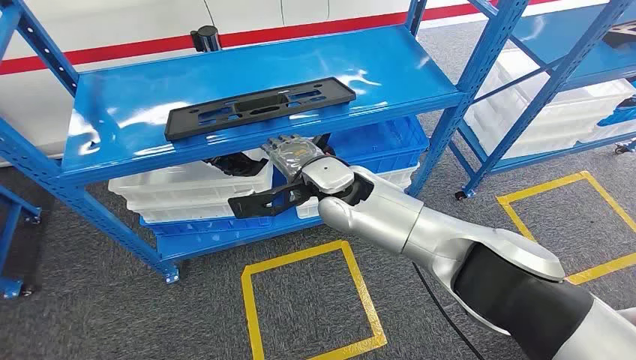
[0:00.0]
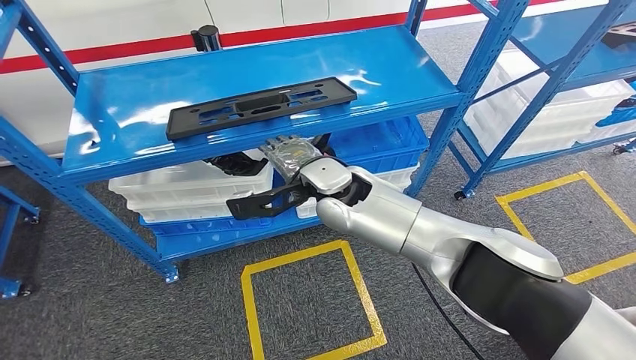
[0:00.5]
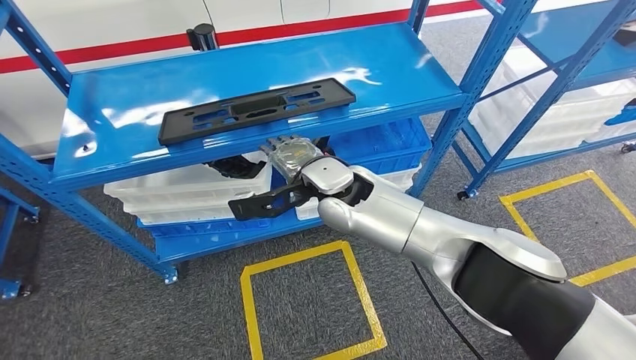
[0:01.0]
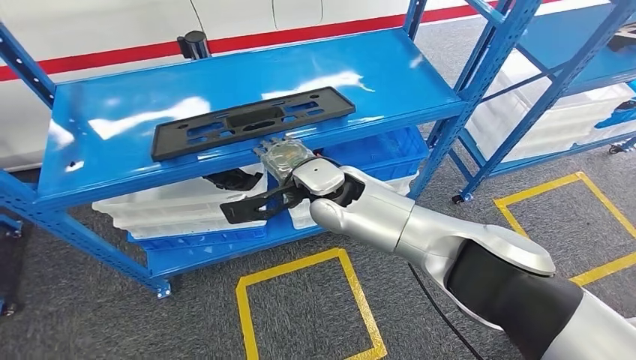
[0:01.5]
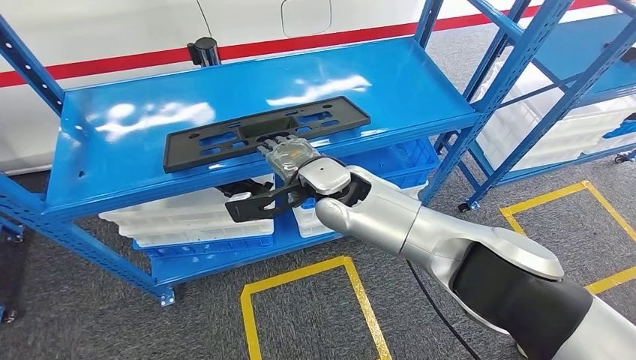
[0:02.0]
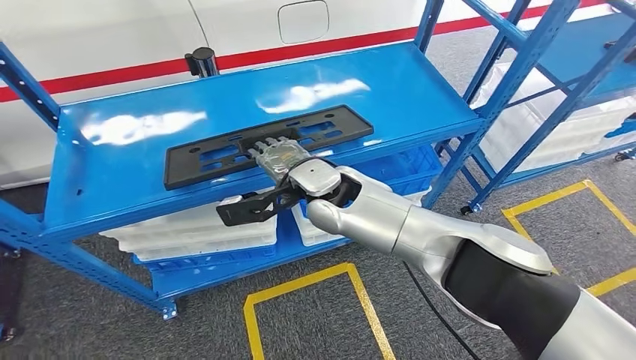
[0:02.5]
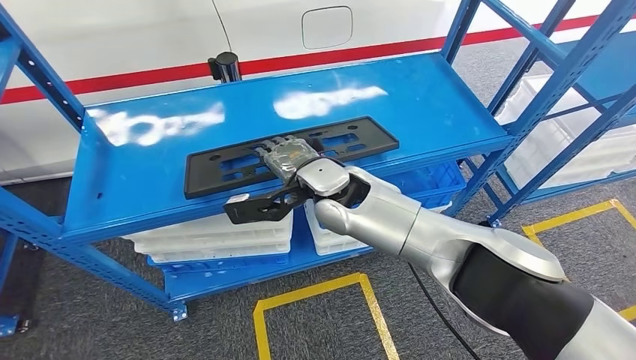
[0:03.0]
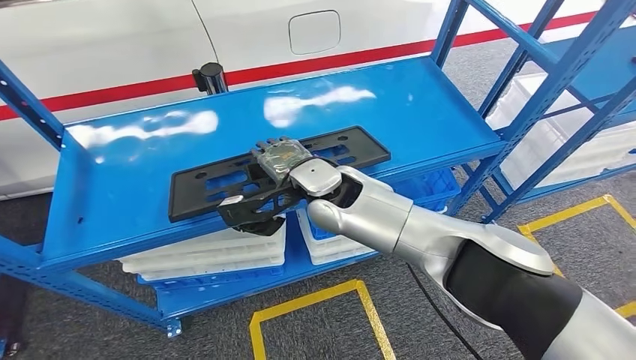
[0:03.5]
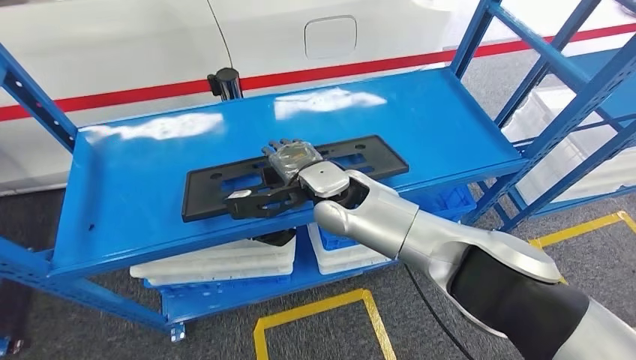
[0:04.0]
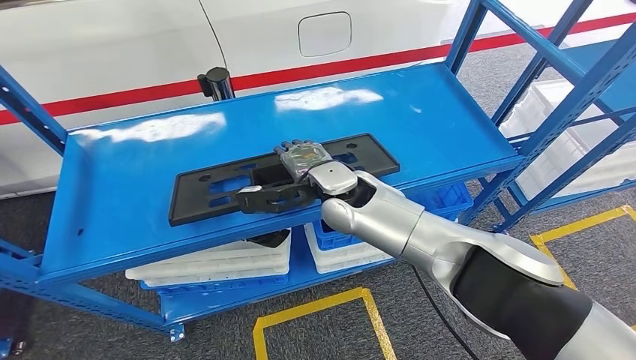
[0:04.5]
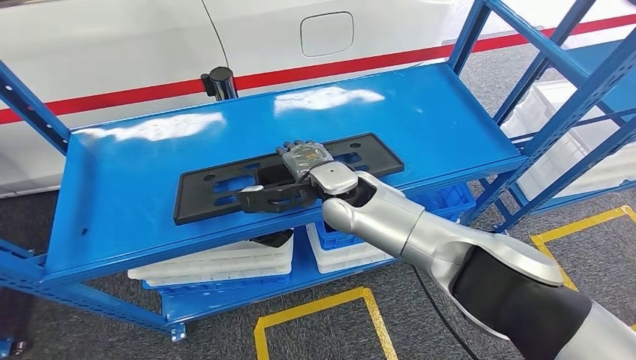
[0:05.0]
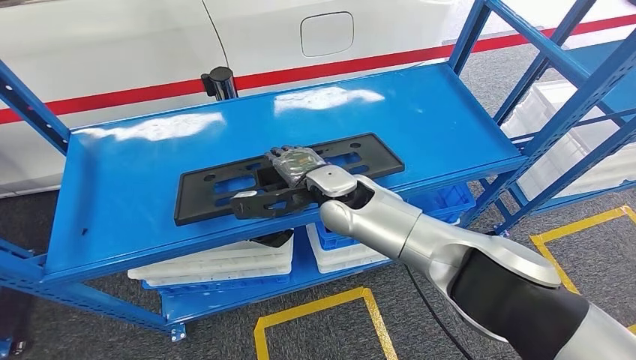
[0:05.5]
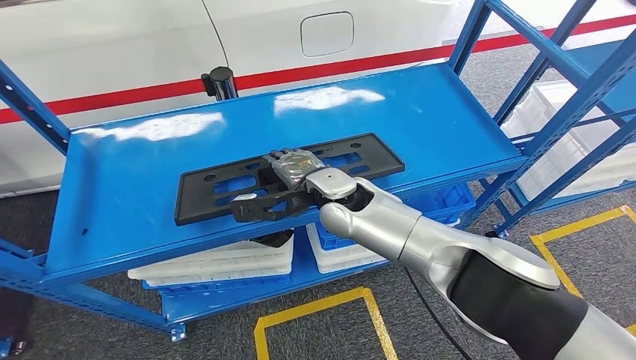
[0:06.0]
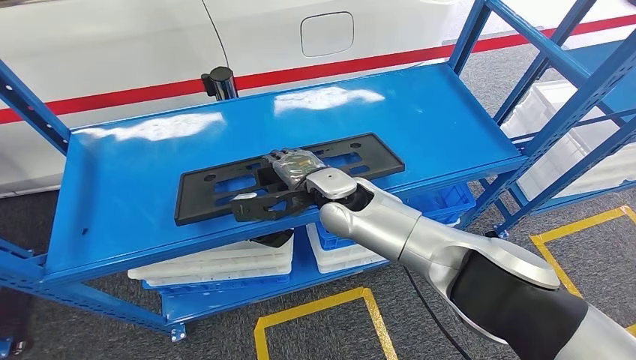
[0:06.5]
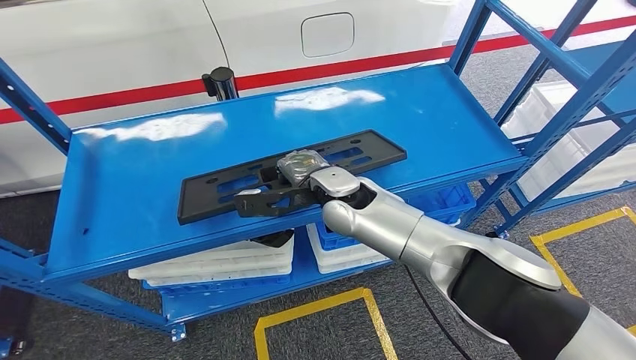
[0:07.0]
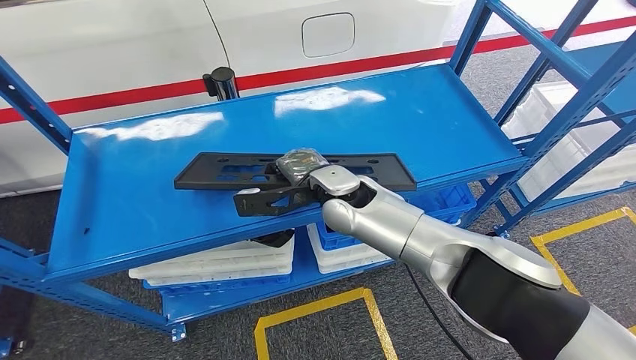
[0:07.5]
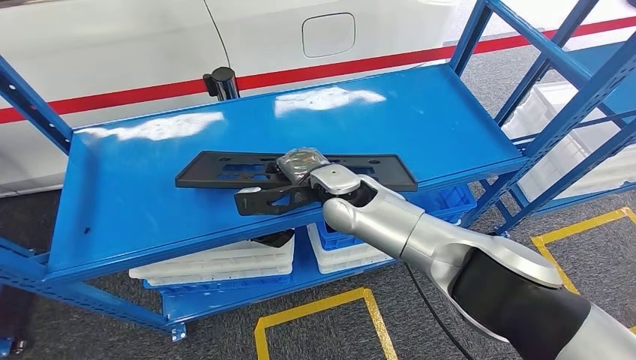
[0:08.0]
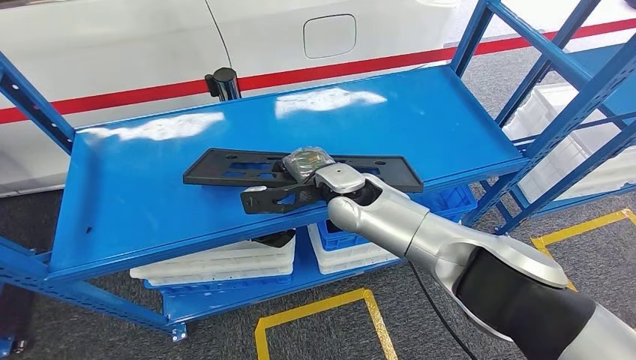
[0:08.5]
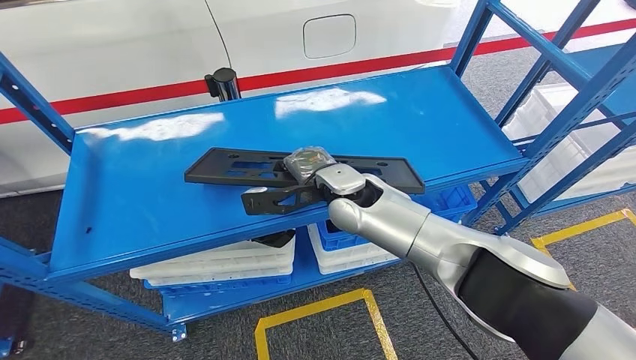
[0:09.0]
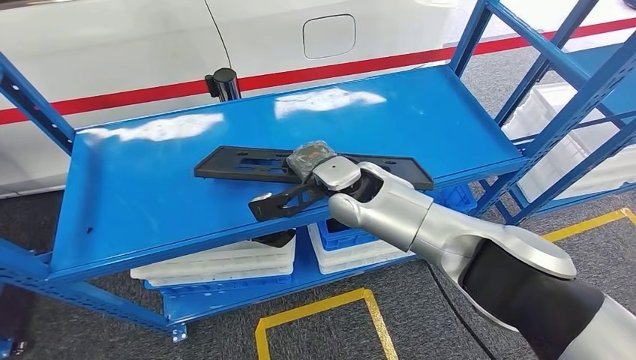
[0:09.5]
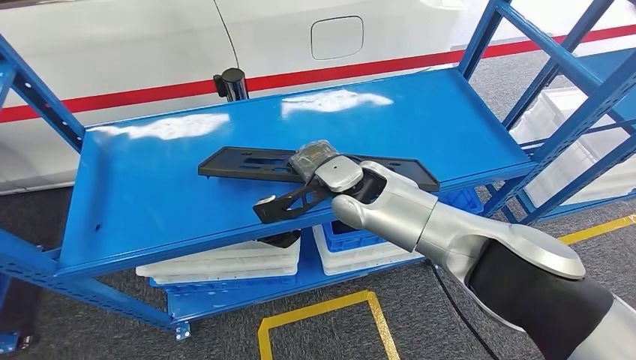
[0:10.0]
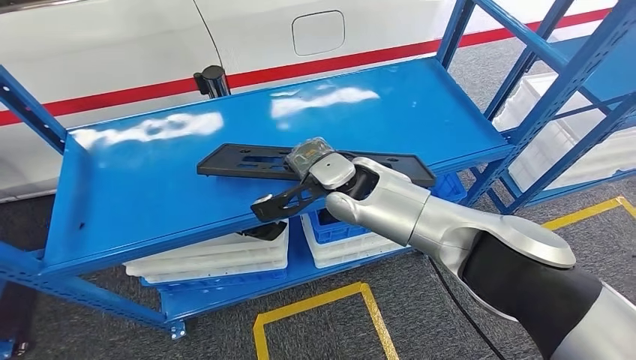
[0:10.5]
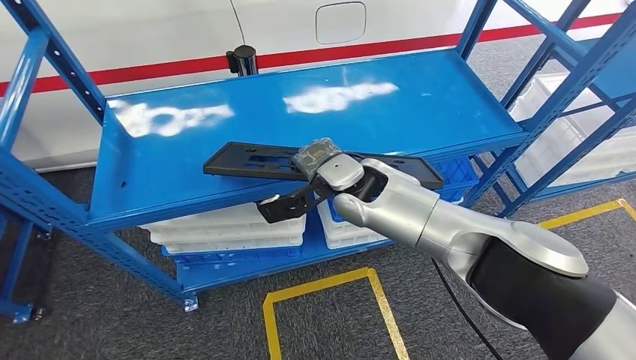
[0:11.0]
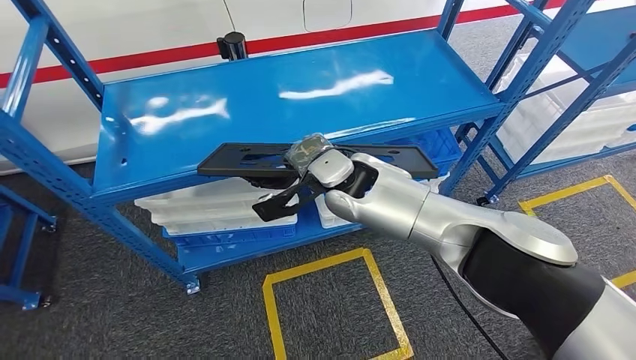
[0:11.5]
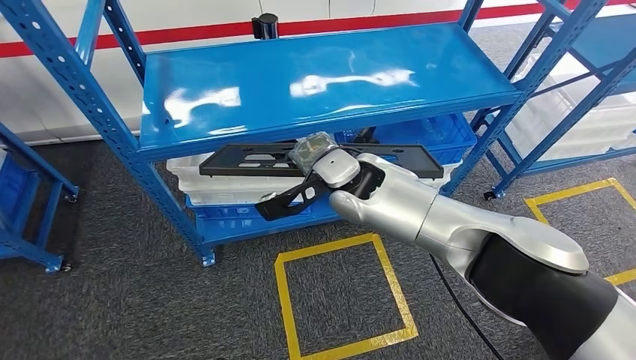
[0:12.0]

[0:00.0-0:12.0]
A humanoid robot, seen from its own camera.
0:04.0 to 0:06.0: The hands stay close to where they were, moving slightly.
0:06.0 to 0:08.0: Both hands stay about where they are.

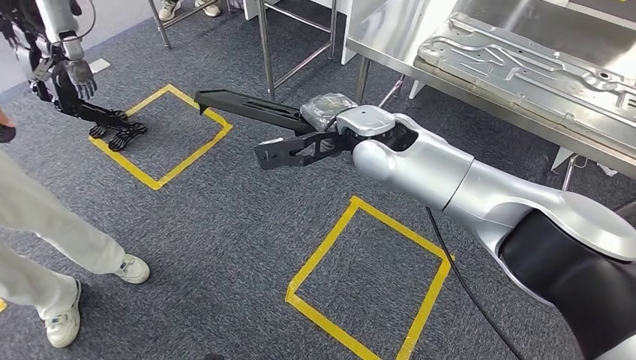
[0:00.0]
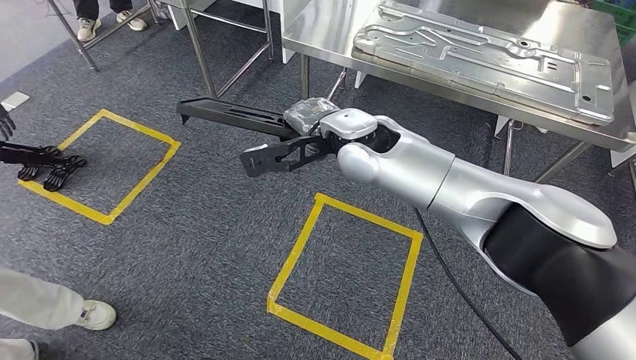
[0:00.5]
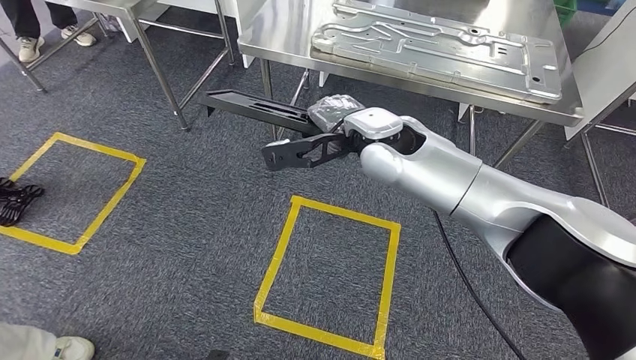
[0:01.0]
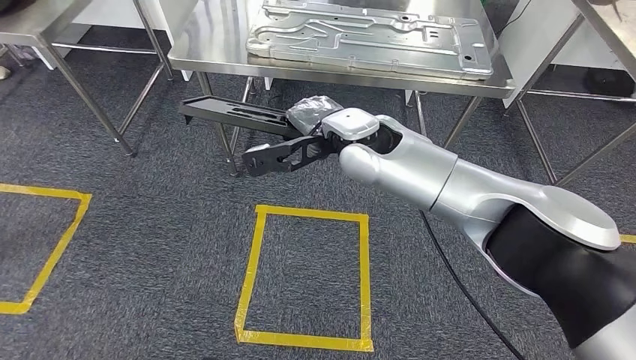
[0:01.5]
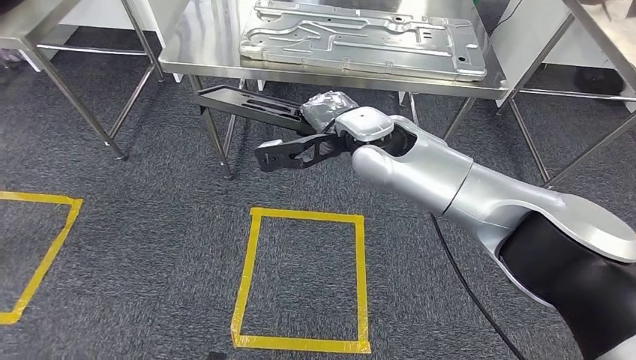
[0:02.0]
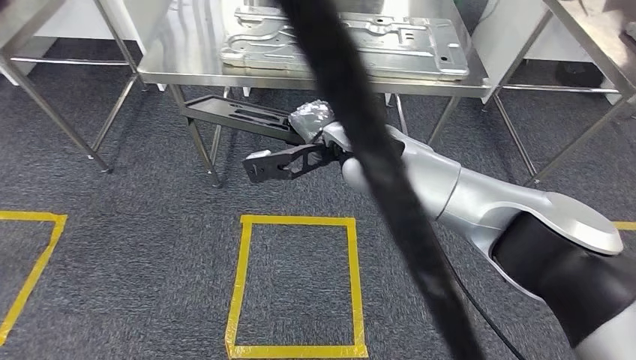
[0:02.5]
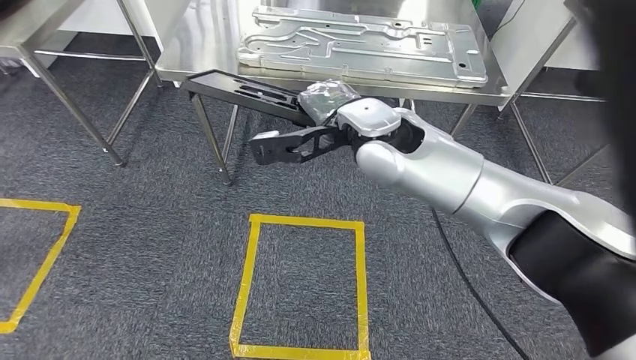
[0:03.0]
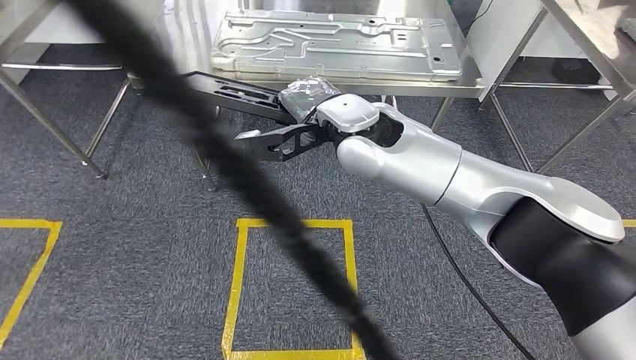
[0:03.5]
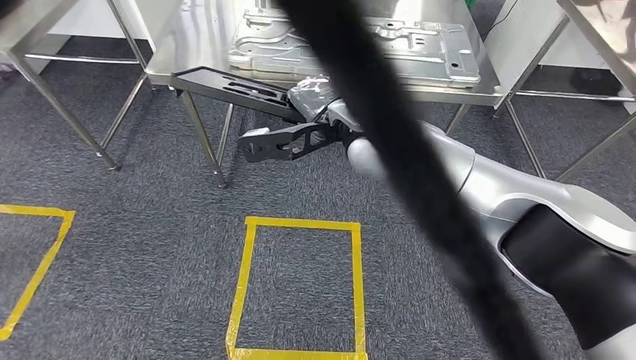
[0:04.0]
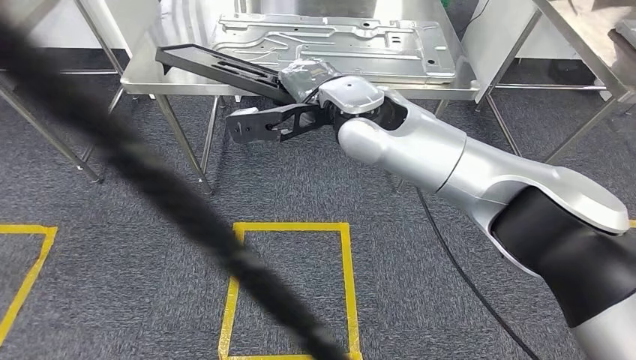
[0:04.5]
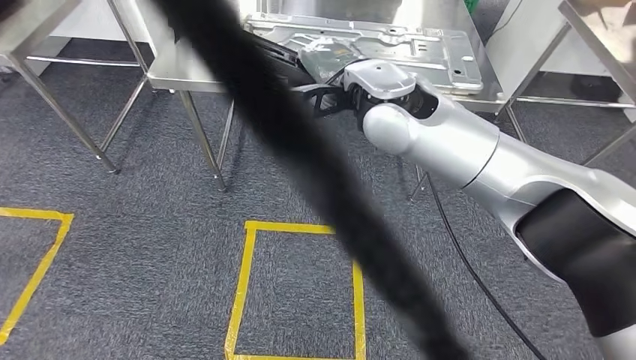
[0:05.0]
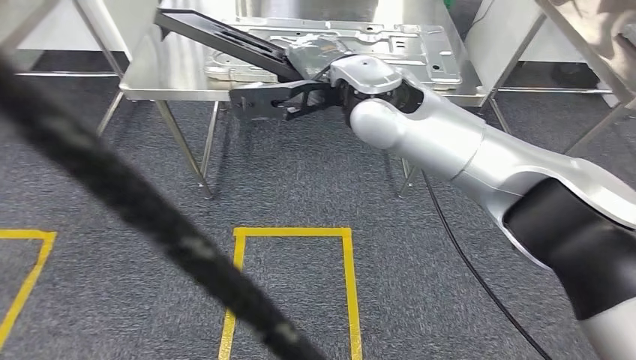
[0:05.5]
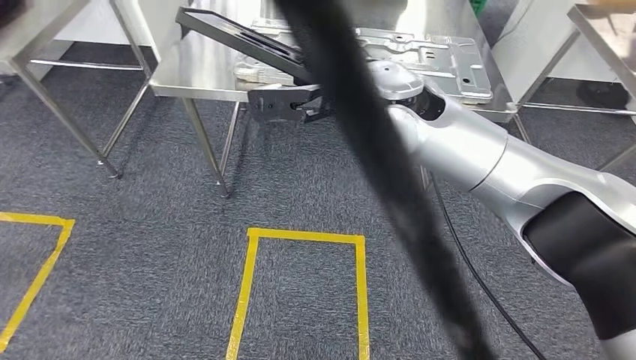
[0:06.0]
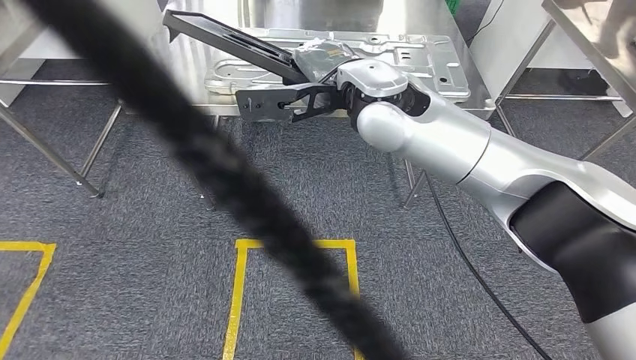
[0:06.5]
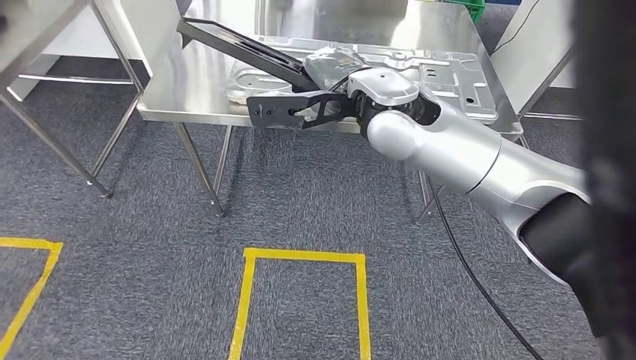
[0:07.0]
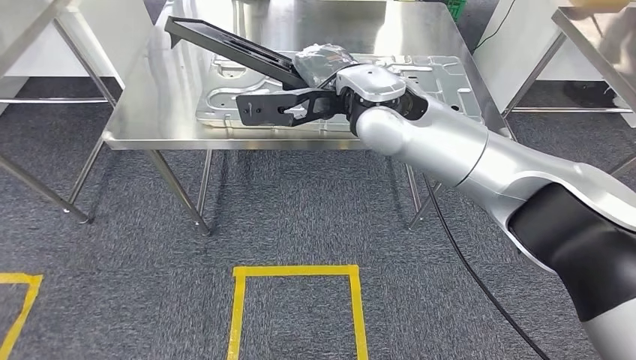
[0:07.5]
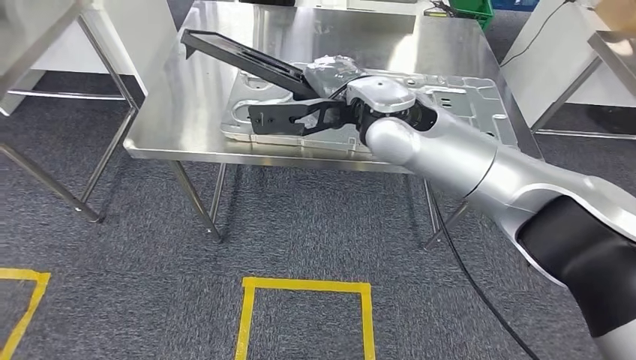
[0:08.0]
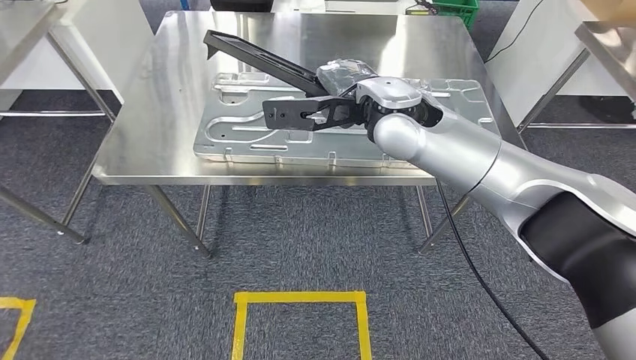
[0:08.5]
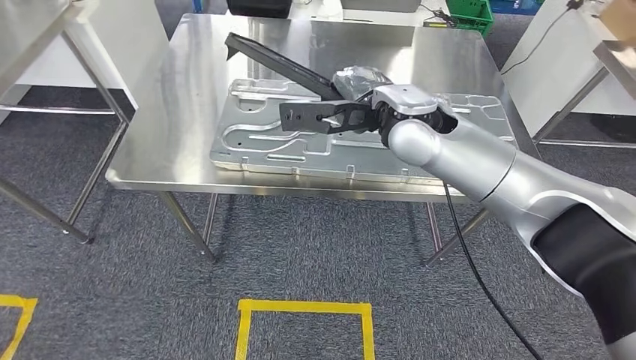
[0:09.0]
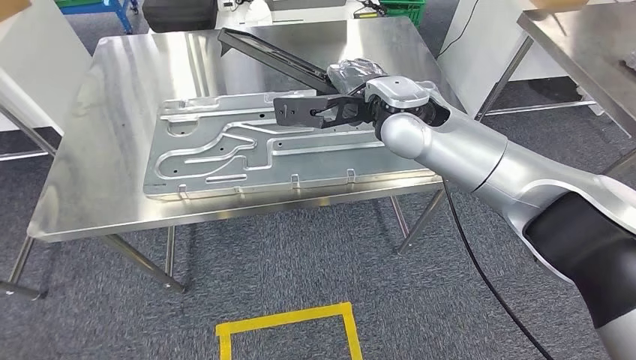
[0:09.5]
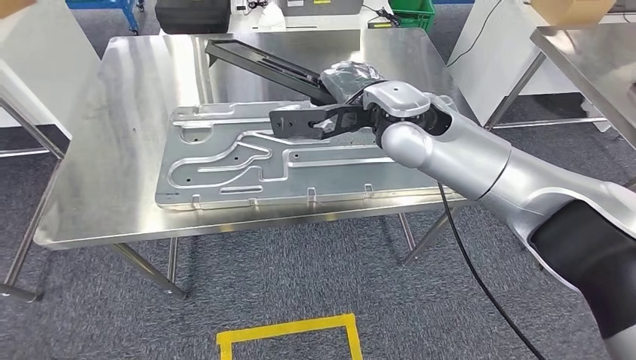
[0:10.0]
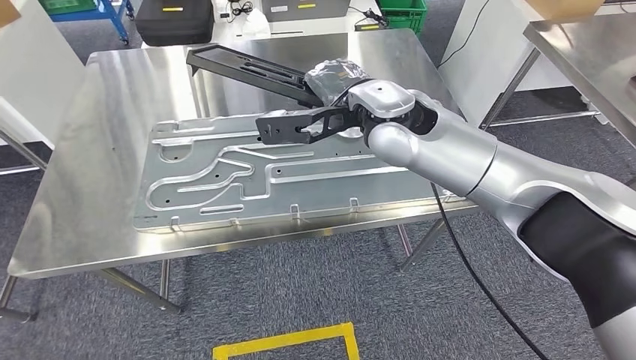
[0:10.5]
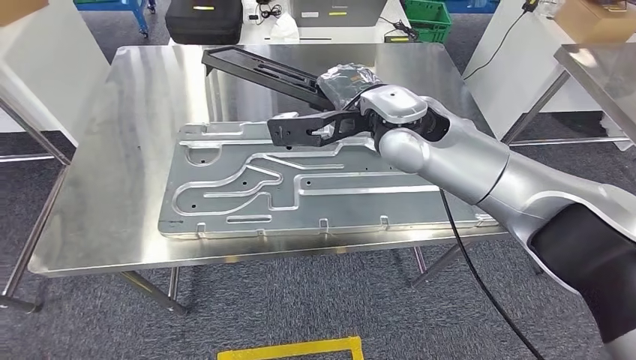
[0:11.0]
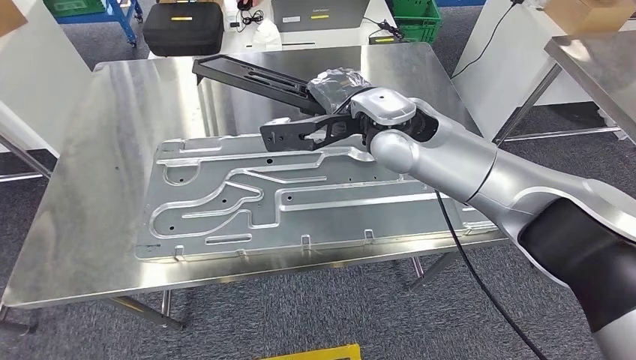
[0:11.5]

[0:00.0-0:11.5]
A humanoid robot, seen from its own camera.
Step, 0:00.0 to 0:03.5: Move the large parts to the workbench.
